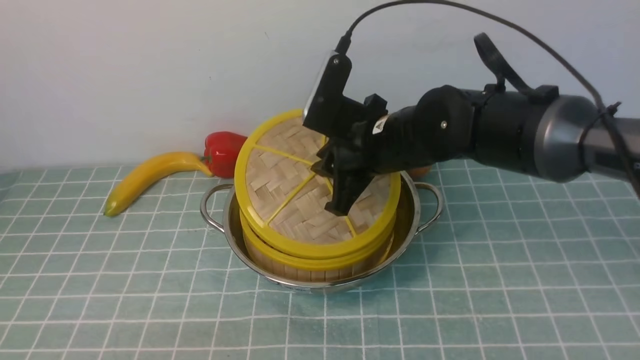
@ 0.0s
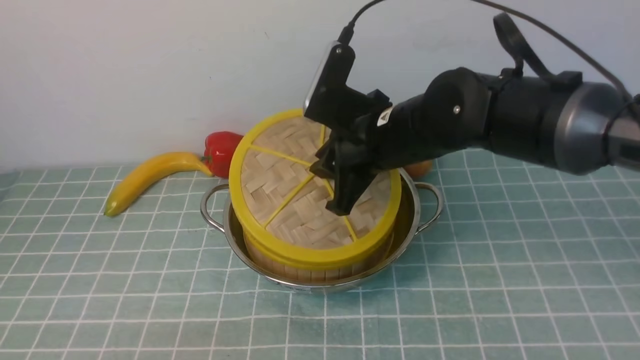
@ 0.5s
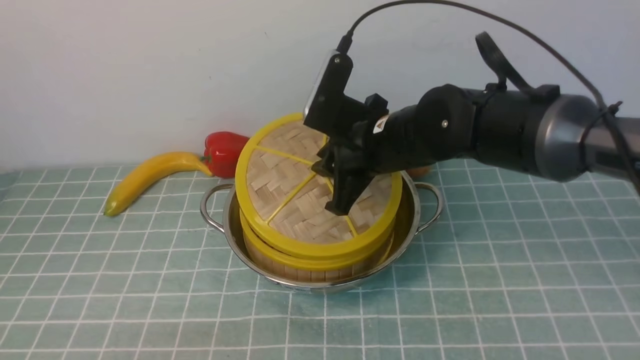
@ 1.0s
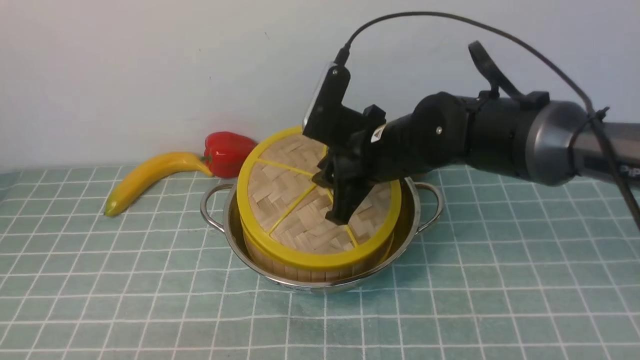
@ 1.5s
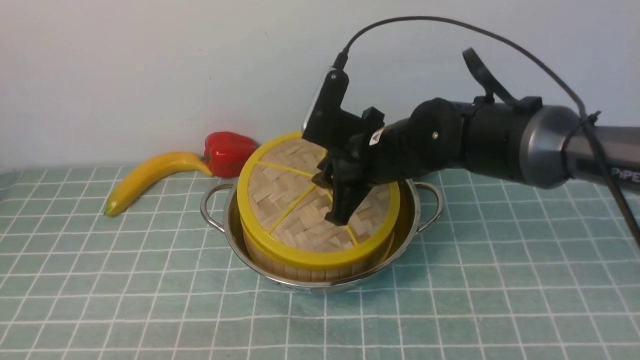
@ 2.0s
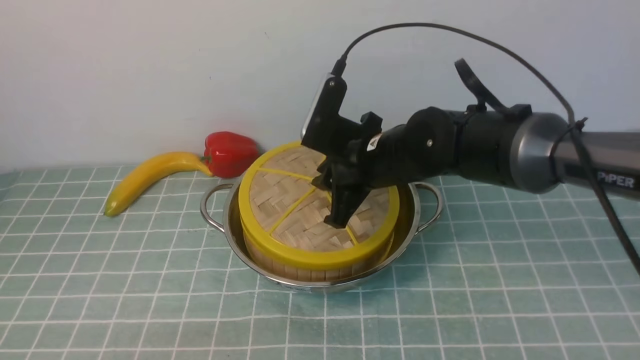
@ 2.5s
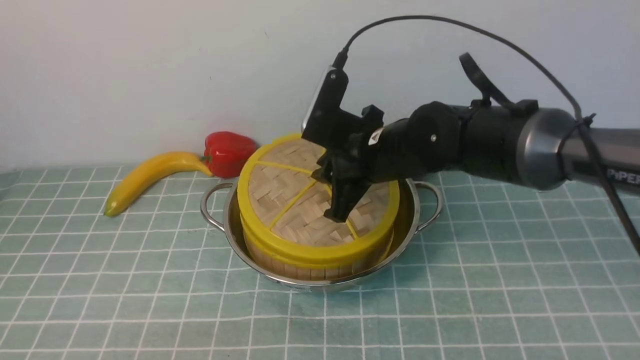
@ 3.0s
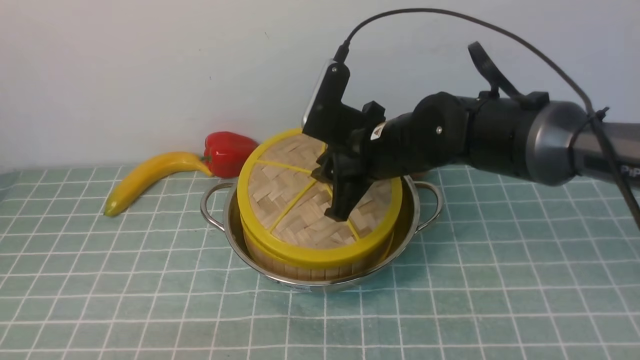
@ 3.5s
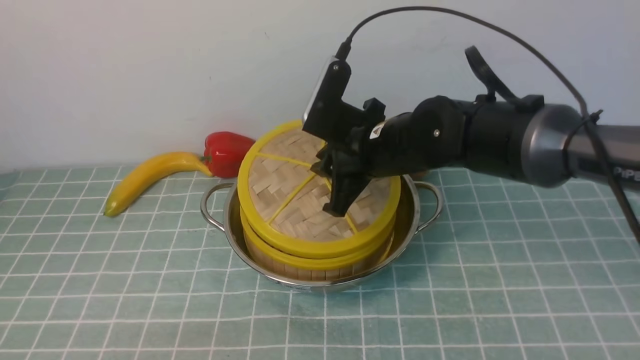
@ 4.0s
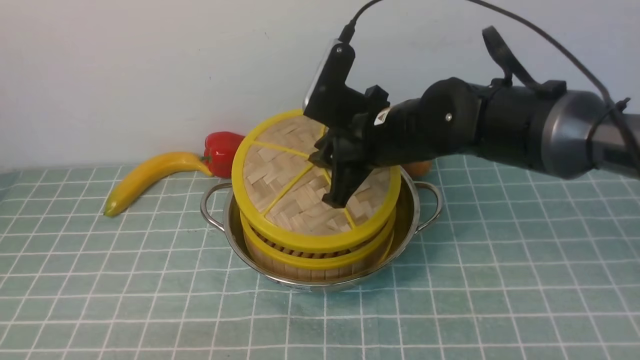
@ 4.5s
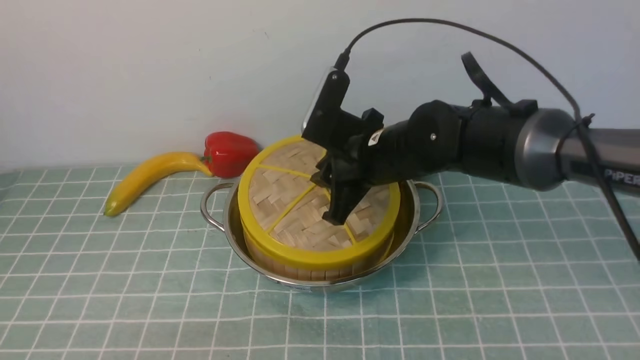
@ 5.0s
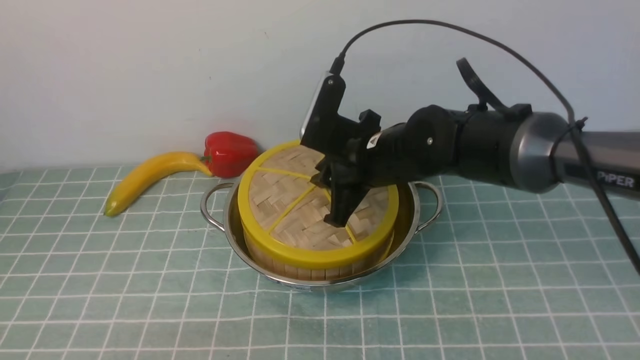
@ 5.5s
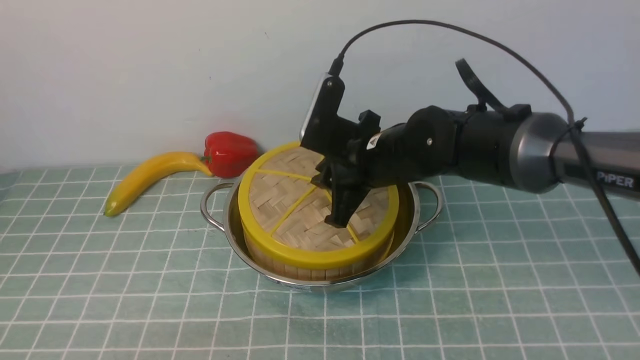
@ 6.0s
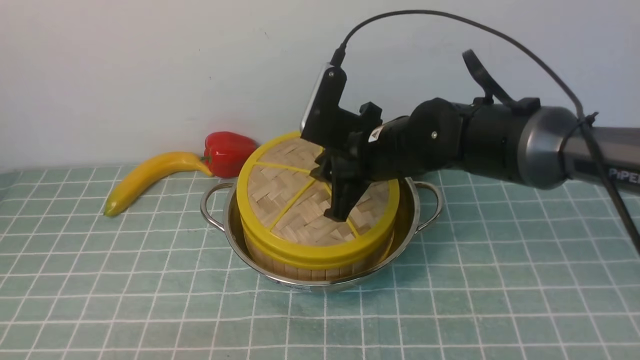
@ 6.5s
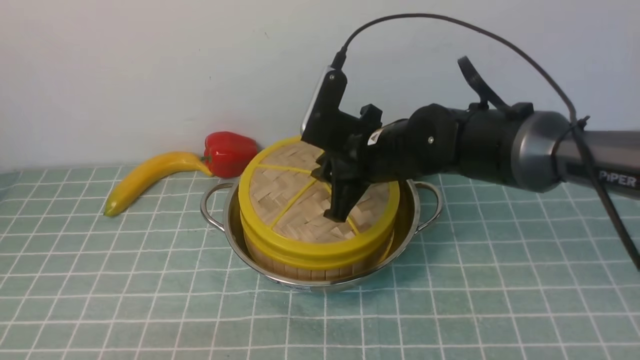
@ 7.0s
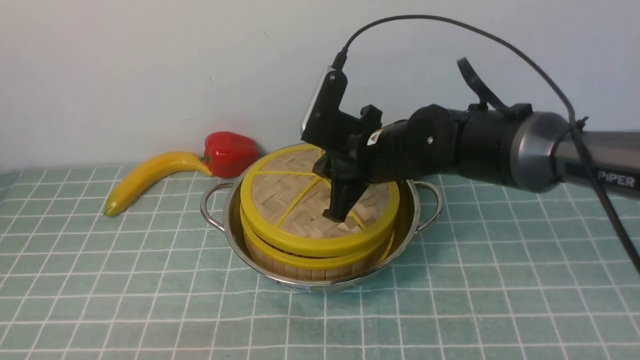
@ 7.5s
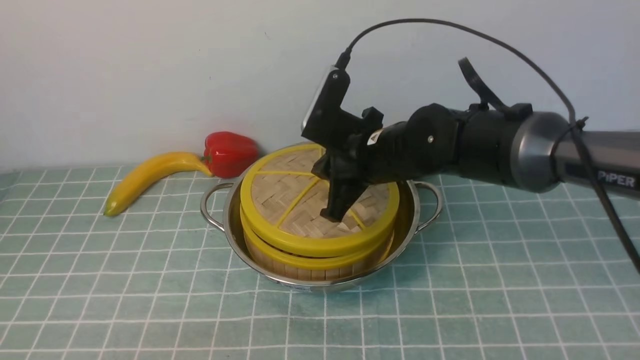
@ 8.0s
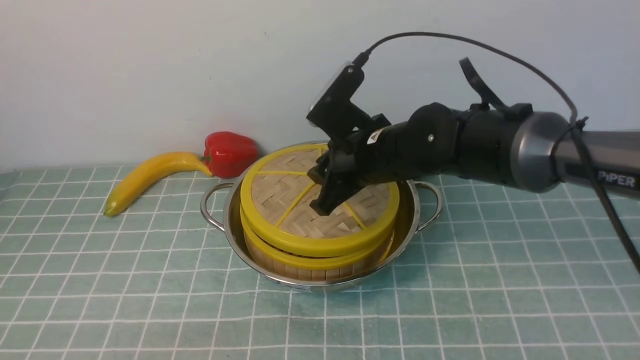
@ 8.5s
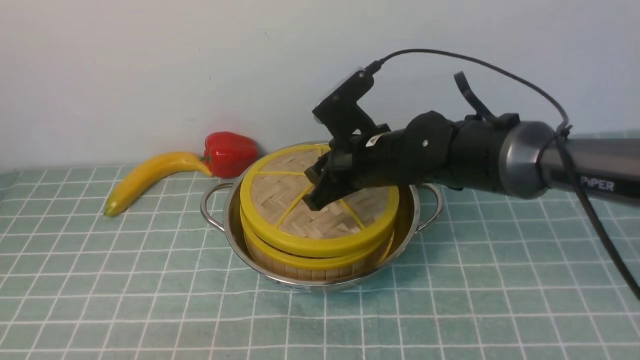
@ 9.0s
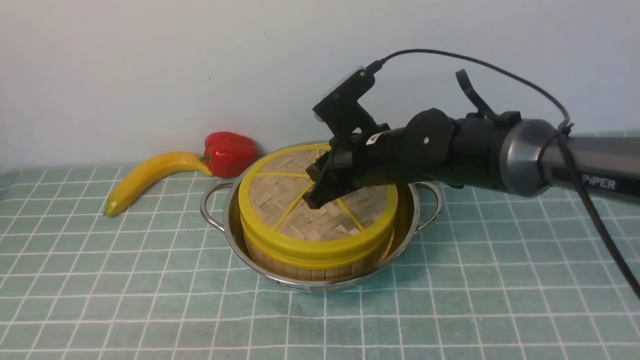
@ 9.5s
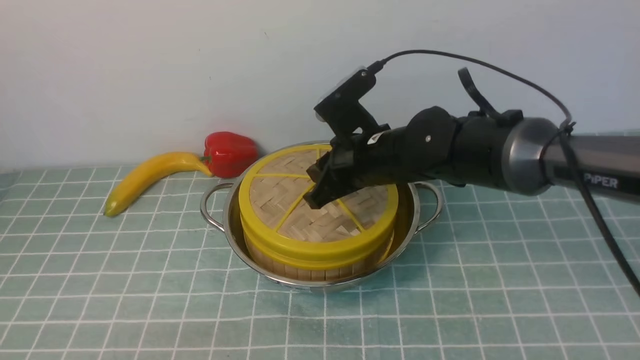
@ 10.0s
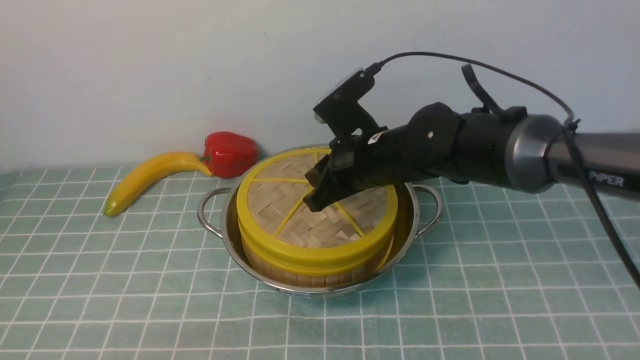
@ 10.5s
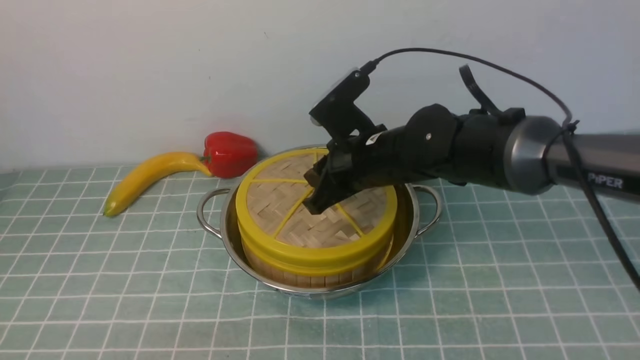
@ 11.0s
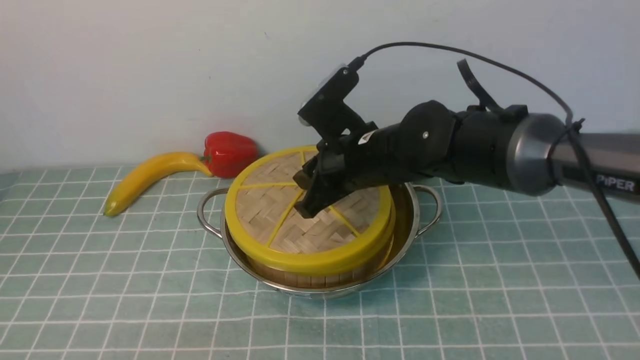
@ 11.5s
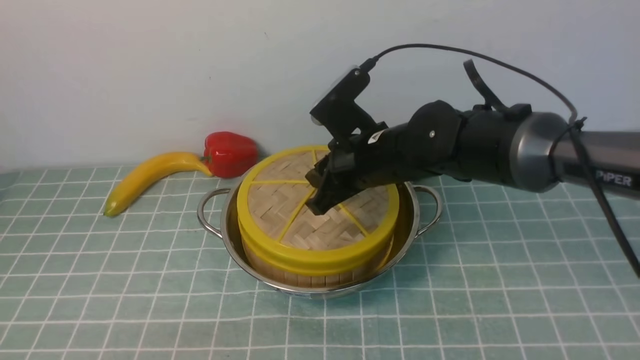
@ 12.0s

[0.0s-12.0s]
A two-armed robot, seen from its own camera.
Task of the whole recording: place the steamer in the pot on the blue tablecloth, and put the lid on the steamer.
0.0s to 2.0s: There are only small adjustments of the grippers.
2.0s to 4.0s: The two grippers keep their place.
4.0s to 6.0s: There are only small adjustments of the grippers.
6.0s to 8.0s: The right gripper closes its fingers.
8.0s to 10.0s: The right gripper opens up.
10.0s to 12.0s: The grippers stay close to where they were, moving slightly.

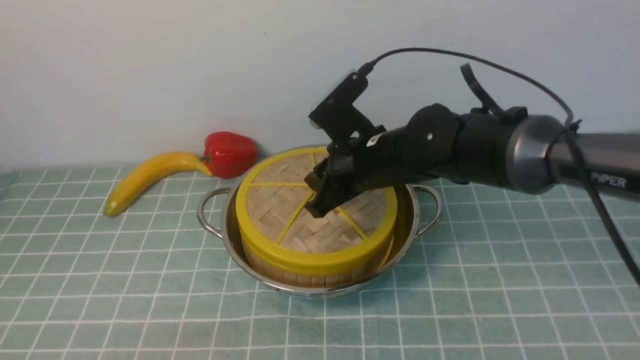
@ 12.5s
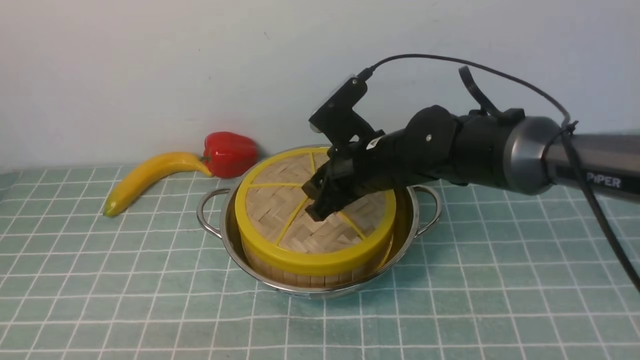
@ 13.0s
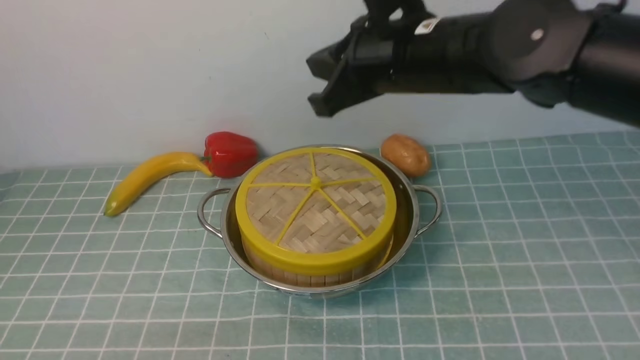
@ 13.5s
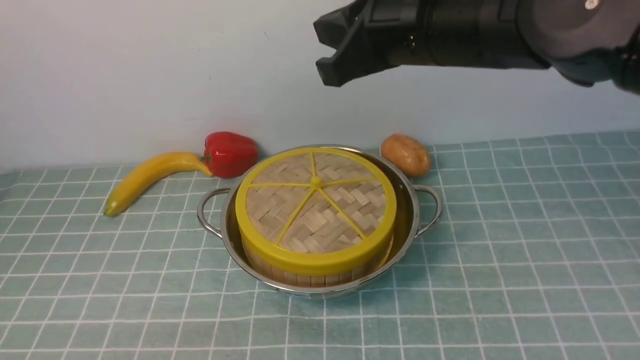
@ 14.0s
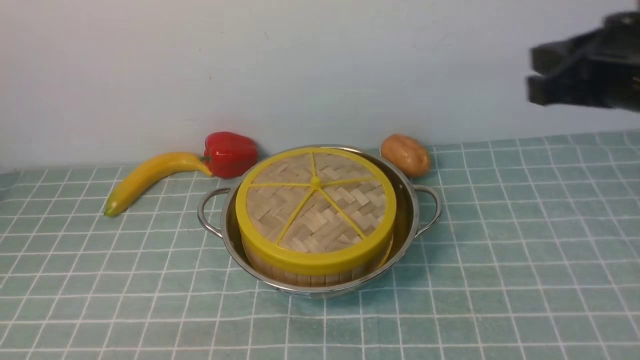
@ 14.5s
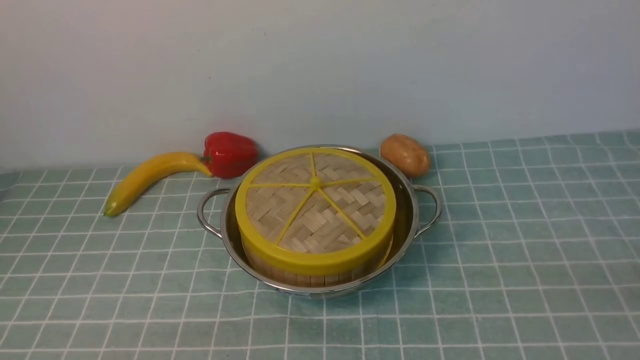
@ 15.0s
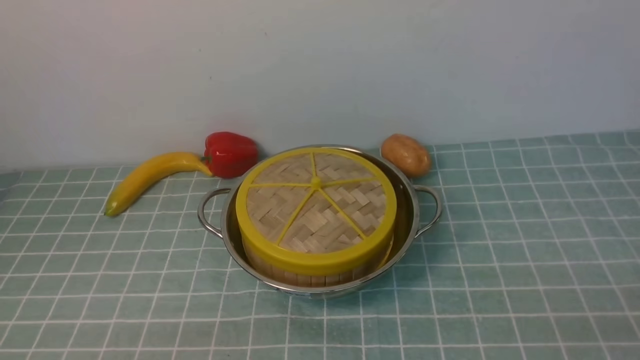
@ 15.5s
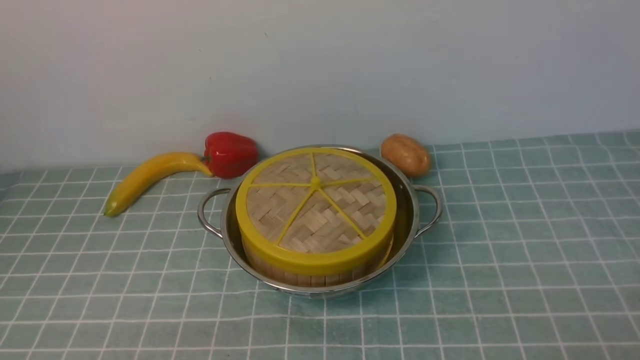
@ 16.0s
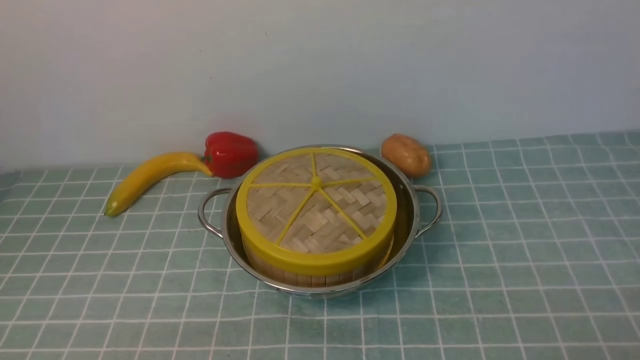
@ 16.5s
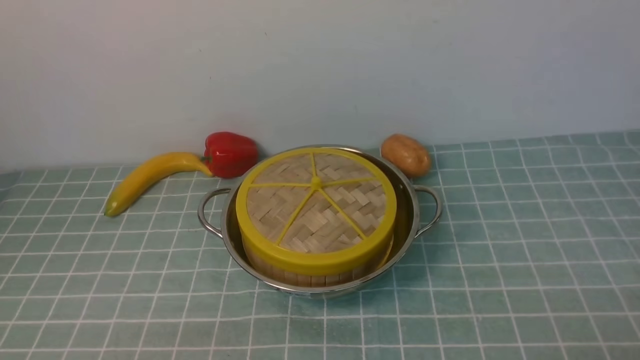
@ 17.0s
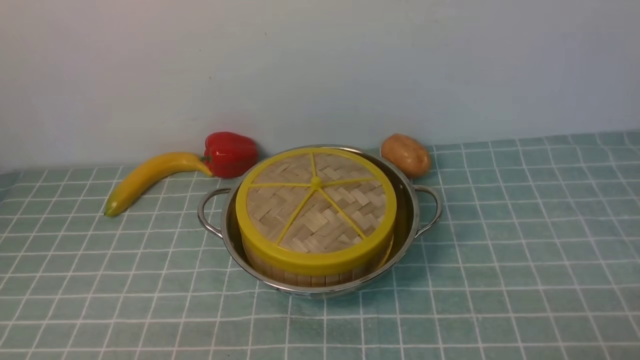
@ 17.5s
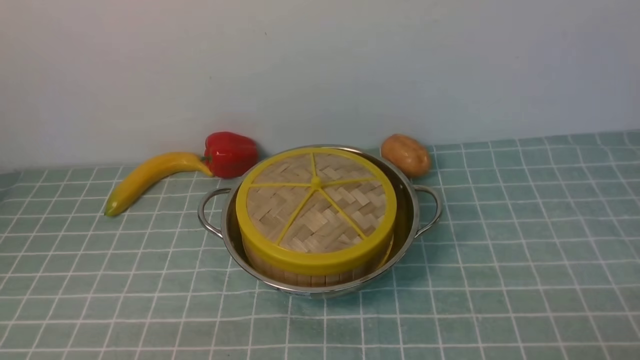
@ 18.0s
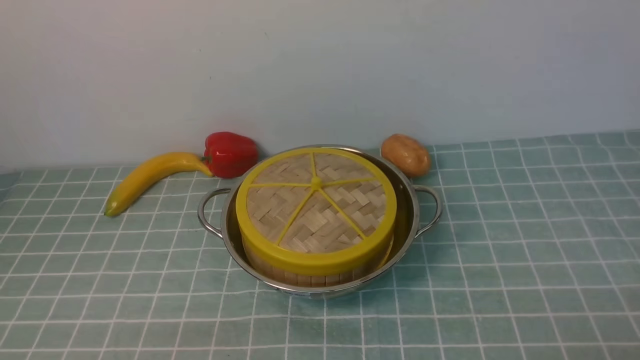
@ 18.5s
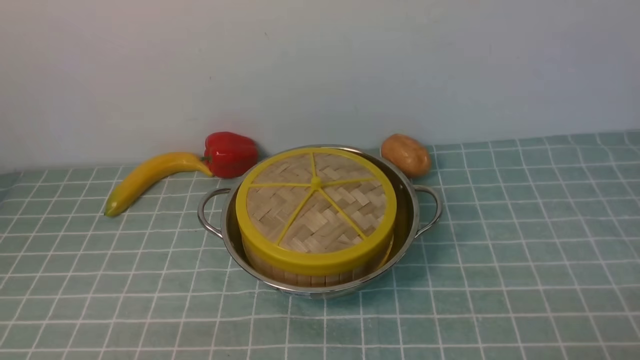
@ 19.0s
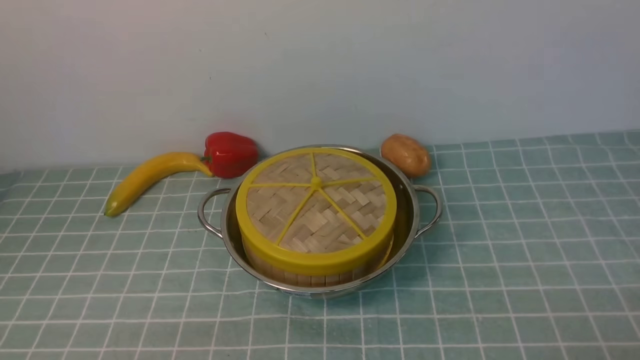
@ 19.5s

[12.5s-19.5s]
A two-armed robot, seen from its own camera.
Task of the whole recording: place the steamer in the pot on the blue tablecloth, and put the lid on the steamer.
12.5s to 14.5s: The right gripper goes approximately 25 cm to the right, upward and backward, and closes.
14.5s to 16.0s: The right gripper heads backward and downward, covering some 25 cm, and opens its fingers.
17.5s to 19.5s: Both grippers stay put.

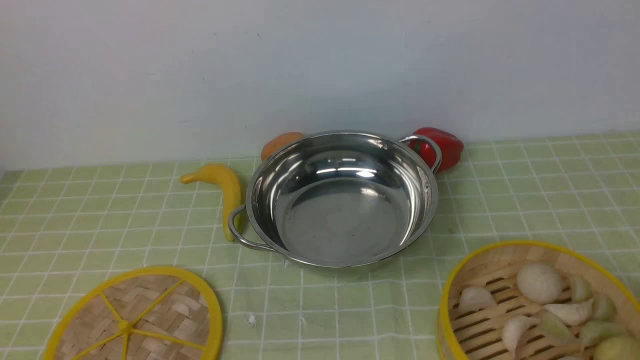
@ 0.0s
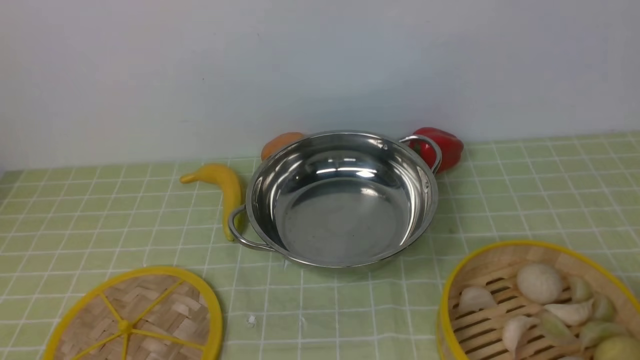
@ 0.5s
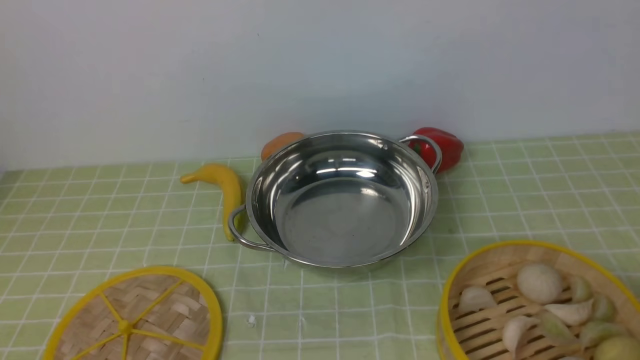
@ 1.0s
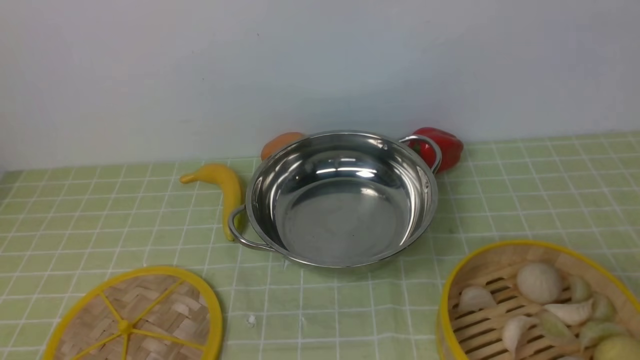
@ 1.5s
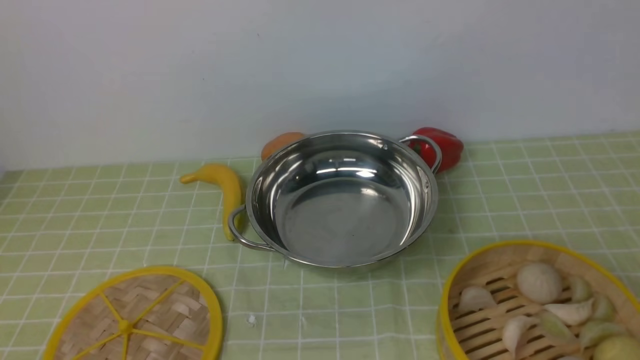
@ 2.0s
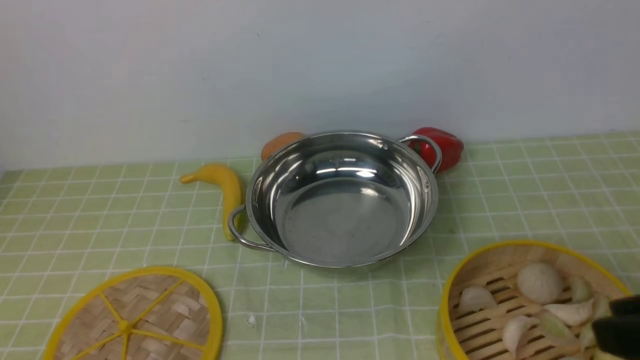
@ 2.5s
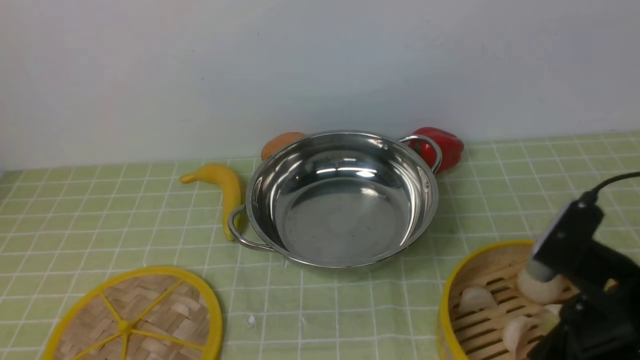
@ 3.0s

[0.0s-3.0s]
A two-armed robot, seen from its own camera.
Task of the whole recording: place the steamer in the pot on the green tablecloth, and put the lid on the steamer.
1.5s to 3.0s: The right gripper is displaced forward, to the left and downward by roughly 20 cm.
